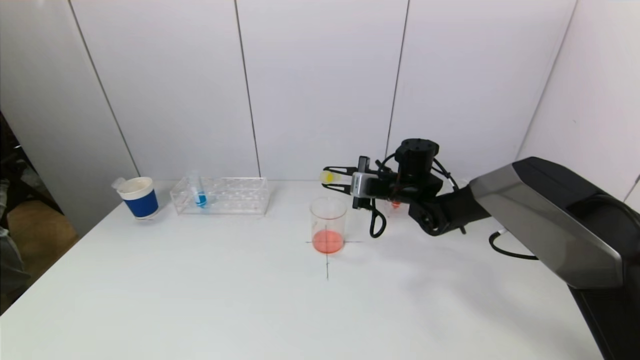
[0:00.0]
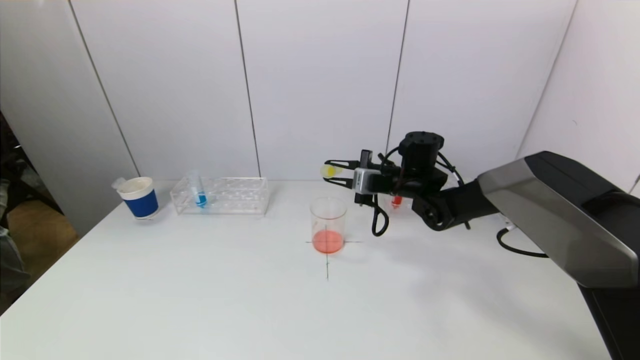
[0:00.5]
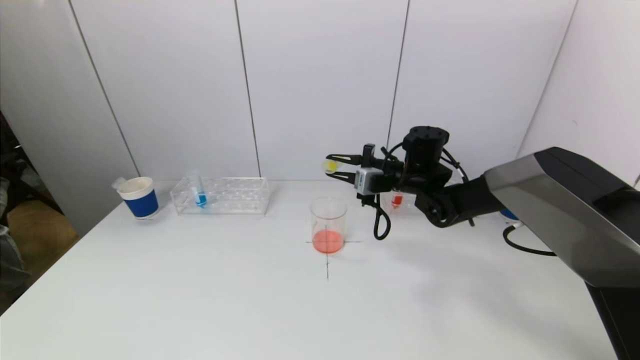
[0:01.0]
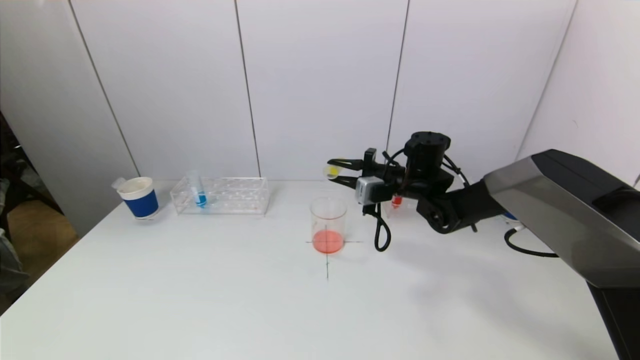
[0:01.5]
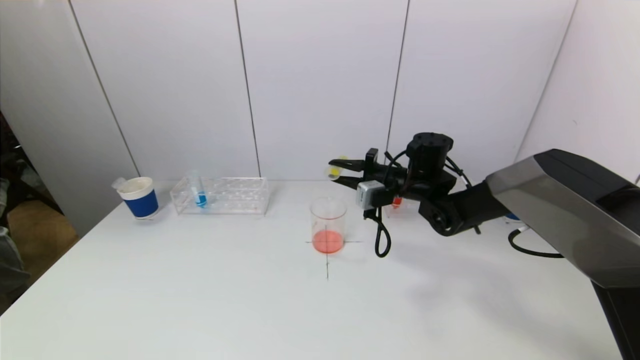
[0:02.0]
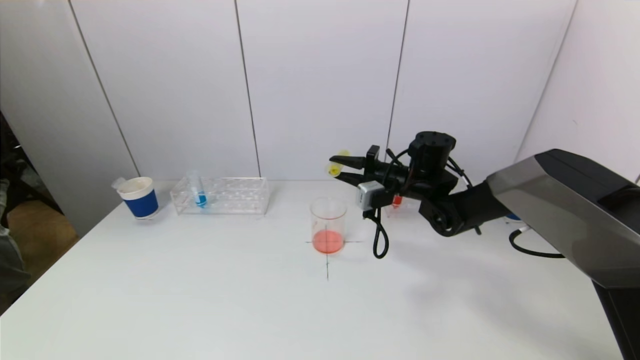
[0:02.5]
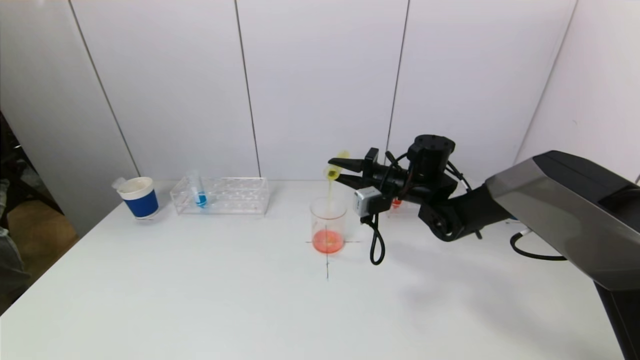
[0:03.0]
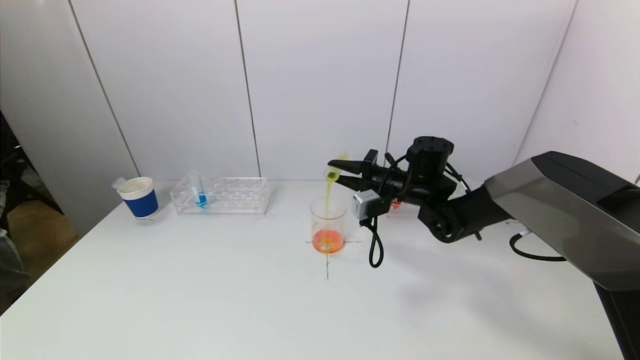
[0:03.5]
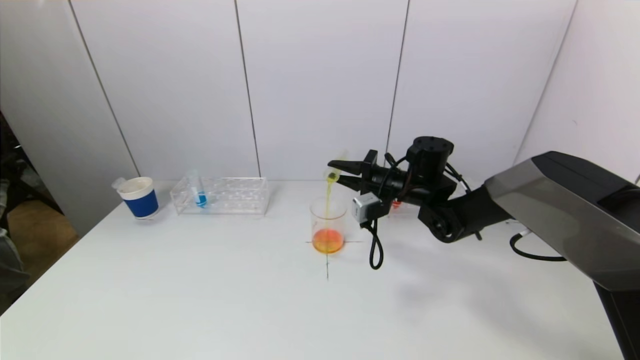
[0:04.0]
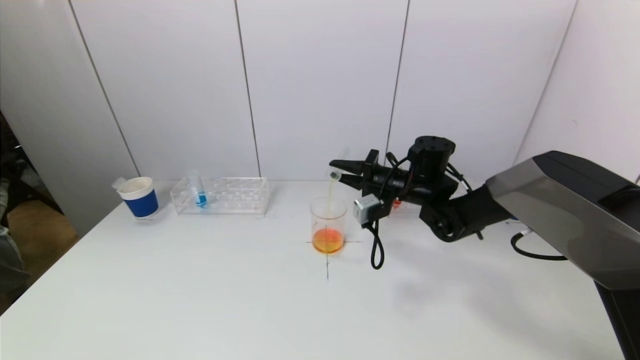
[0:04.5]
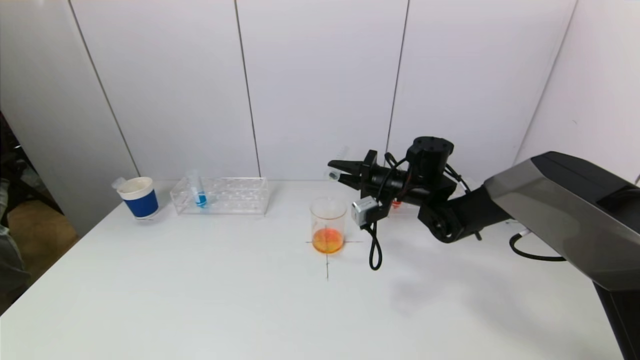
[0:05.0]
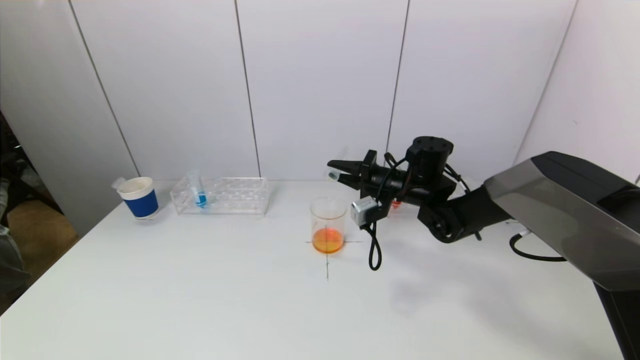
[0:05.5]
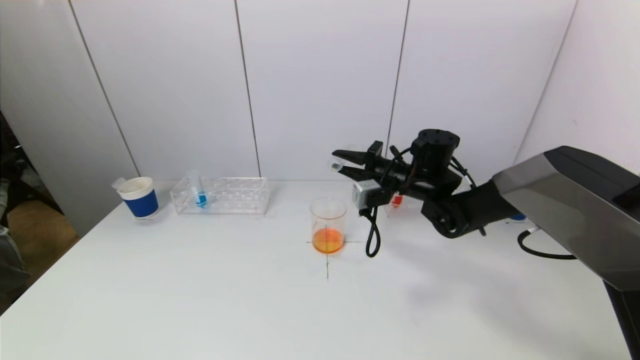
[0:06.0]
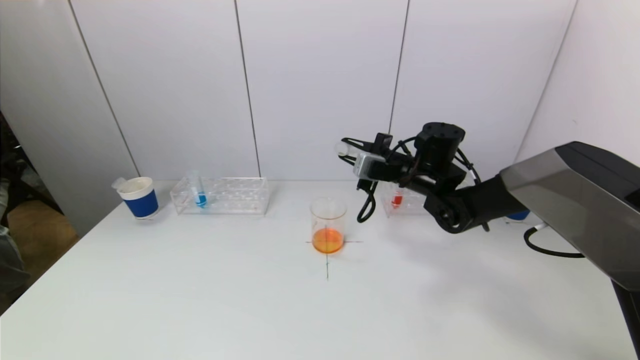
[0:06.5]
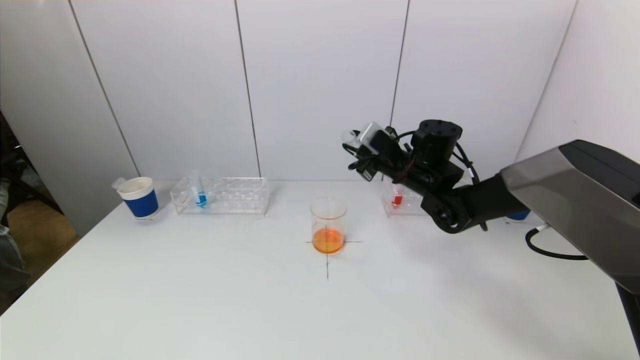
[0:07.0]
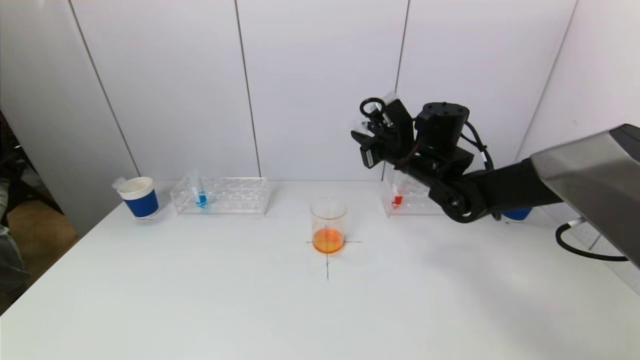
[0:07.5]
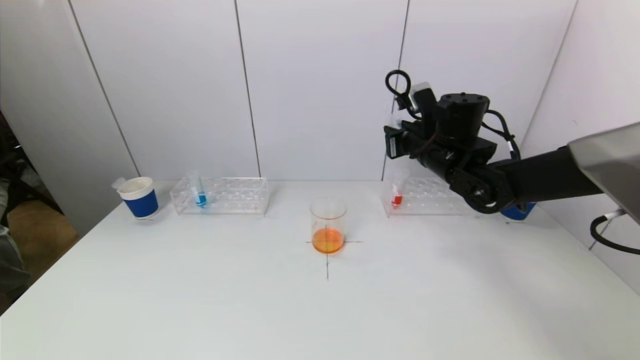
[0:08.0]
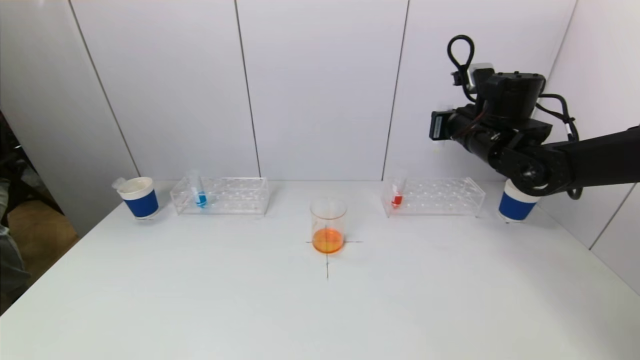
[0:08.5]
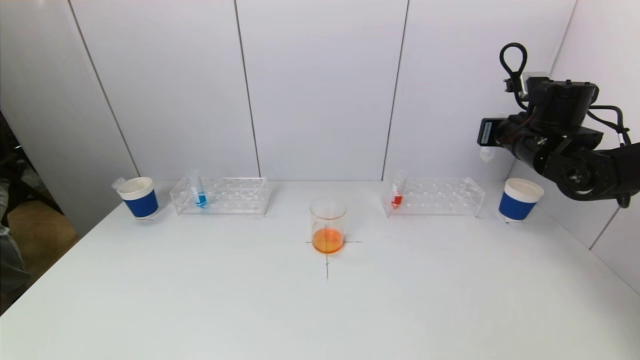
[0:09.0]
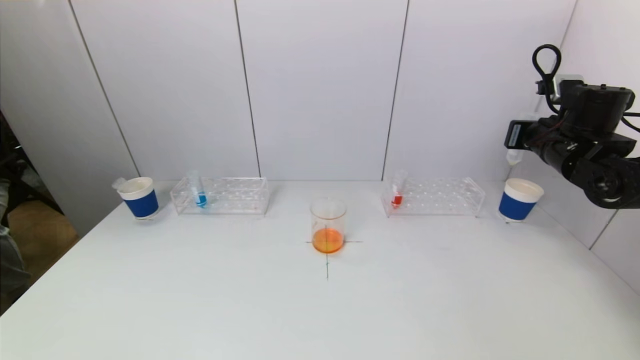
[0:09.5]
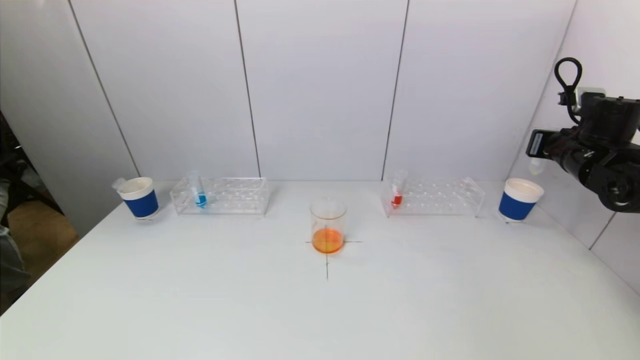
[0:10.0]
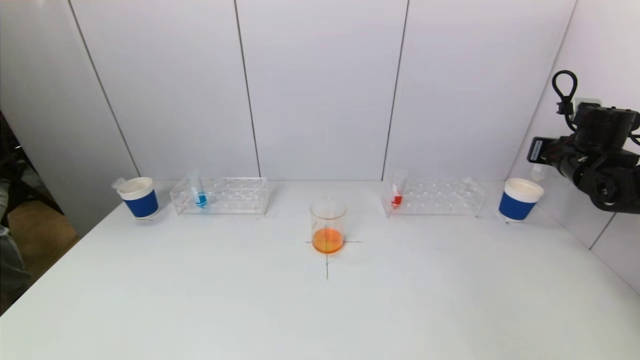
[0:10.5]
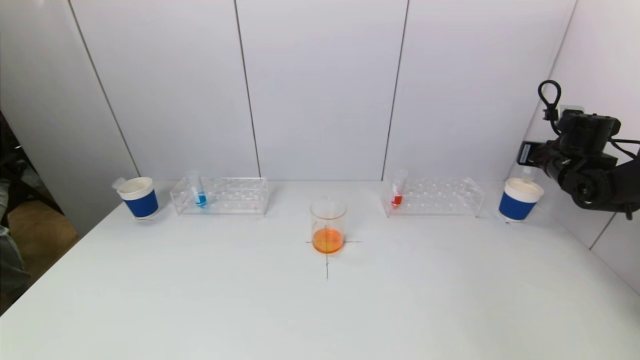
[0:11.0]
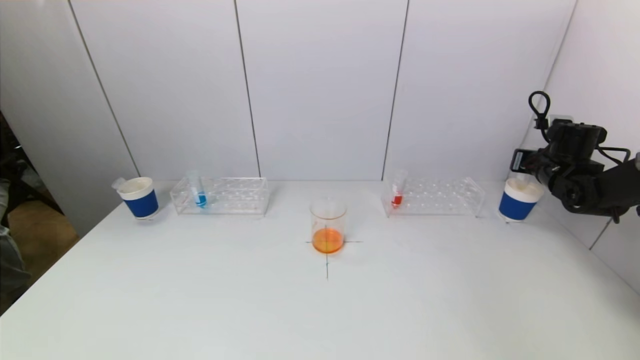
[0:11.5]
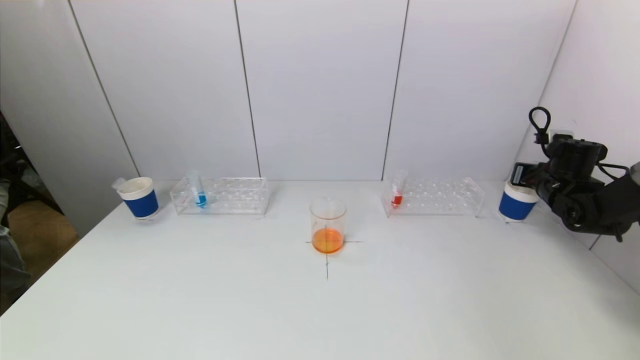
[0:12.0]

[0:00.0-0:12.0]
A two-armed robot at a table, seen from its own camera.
Task of the whole recording: pick up a test tube with pigment on left test tube rack and a test tube with pigment on right test tube rack by grippers and pour them into the beaker.
Step, 0:00.0 to 0:05.5: Pour the yellow reagent into the graduated cylinder with the right gripper.
0:00.0 to 0:02.0: The grippers make only small movements.
0:02.0 to 0:04.0: There are only small adjustments of the grippers.
0:04.0 to 0:06.0: The grippers make only small movements.
0:06.0 to 0:08.0: The right gripper goes some 5 cm upward.
0:08.0 to 0:10.0: The right gripper is displaced to the right by approximately 20 cm.
0:10.0 to 0:12.0: The right gripper travels downward by some 10 cm.

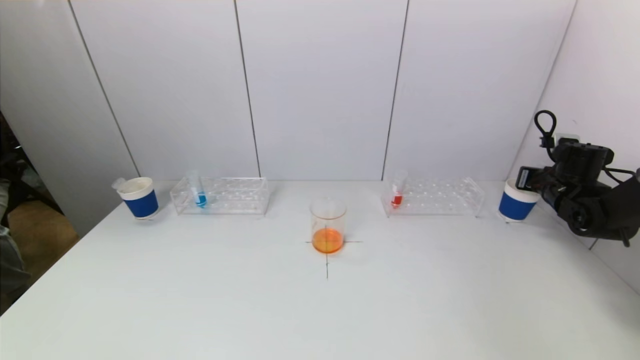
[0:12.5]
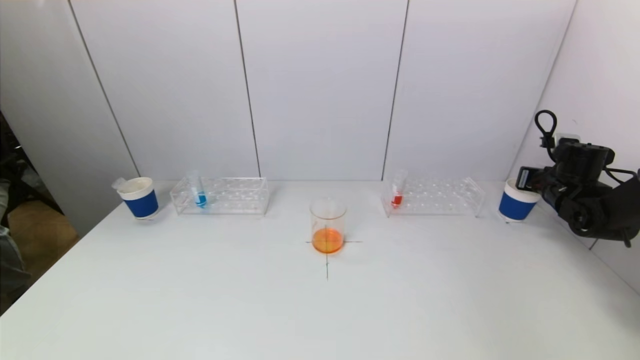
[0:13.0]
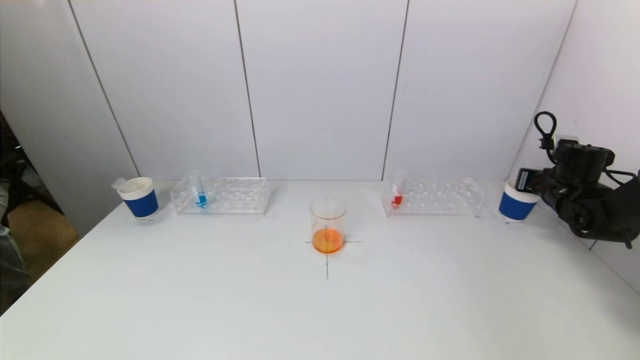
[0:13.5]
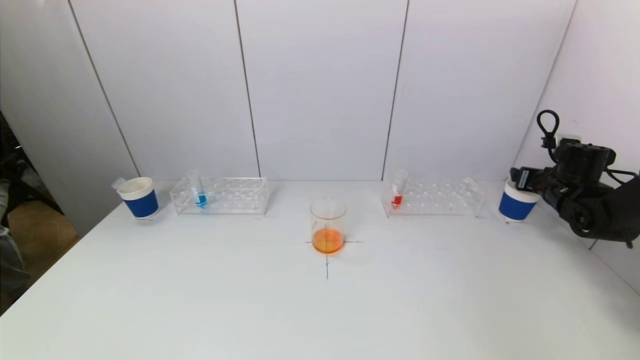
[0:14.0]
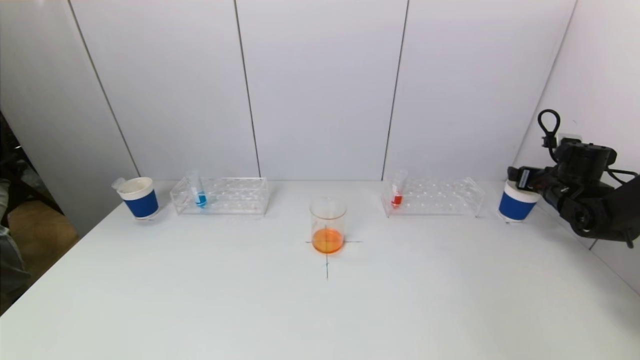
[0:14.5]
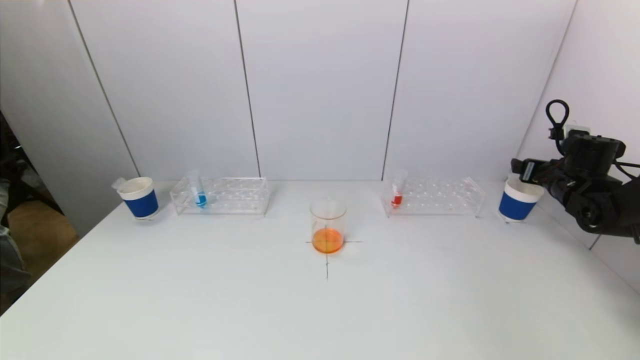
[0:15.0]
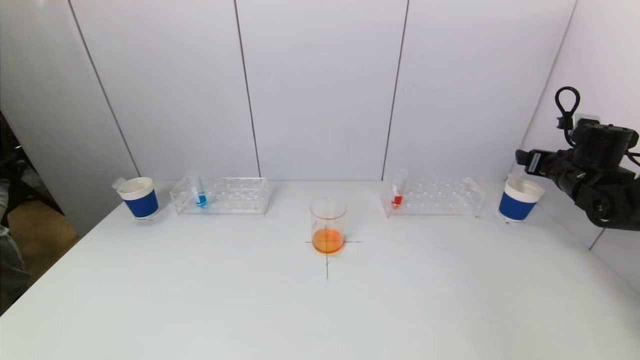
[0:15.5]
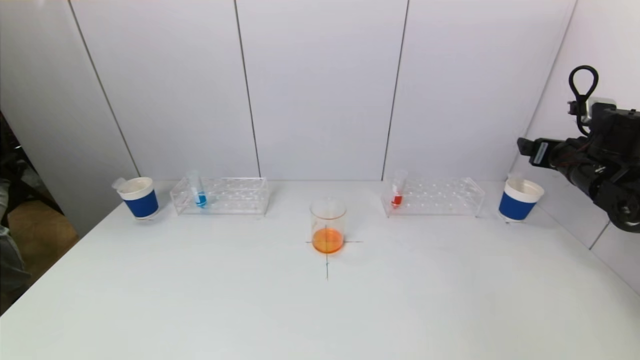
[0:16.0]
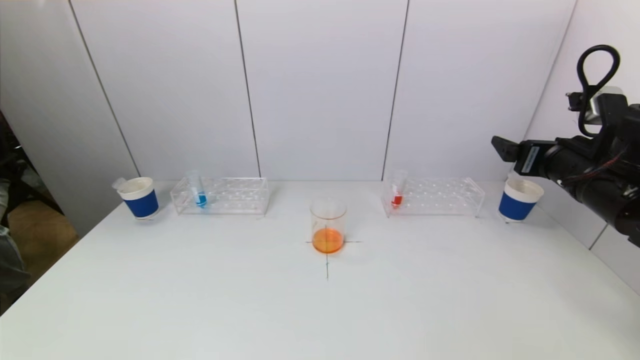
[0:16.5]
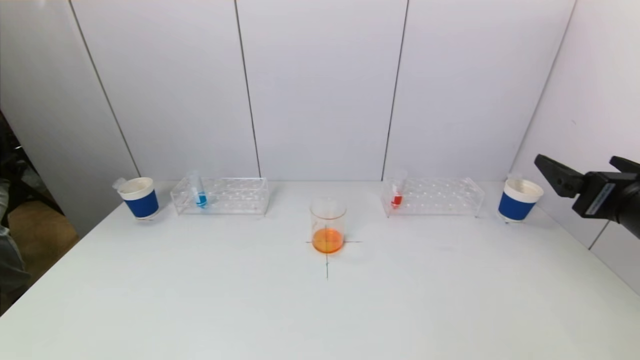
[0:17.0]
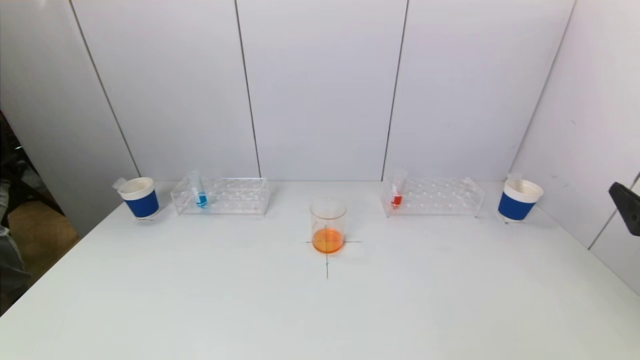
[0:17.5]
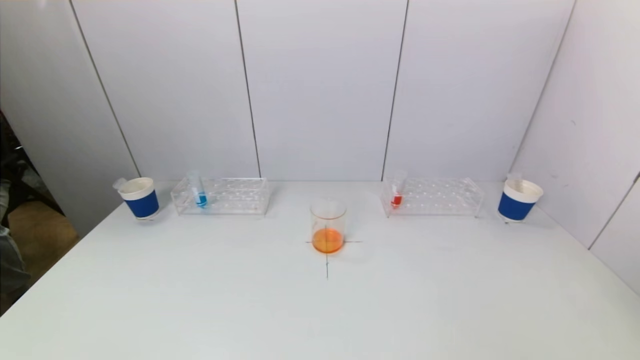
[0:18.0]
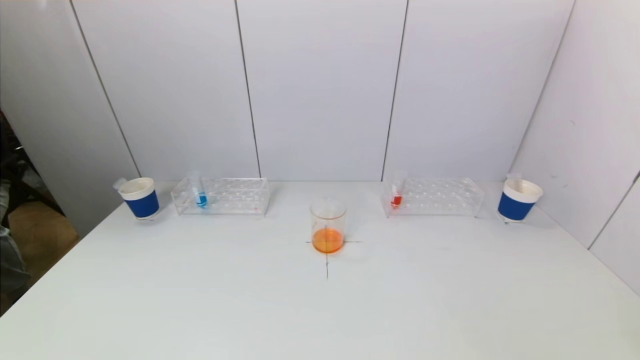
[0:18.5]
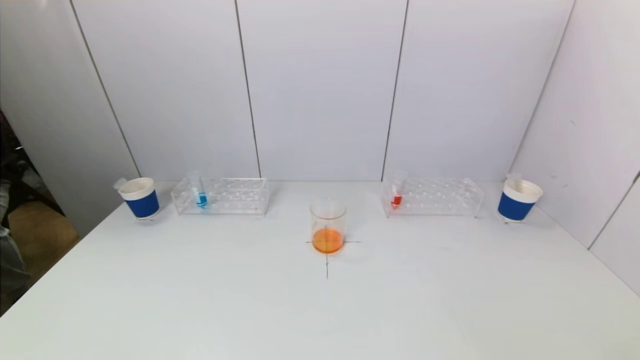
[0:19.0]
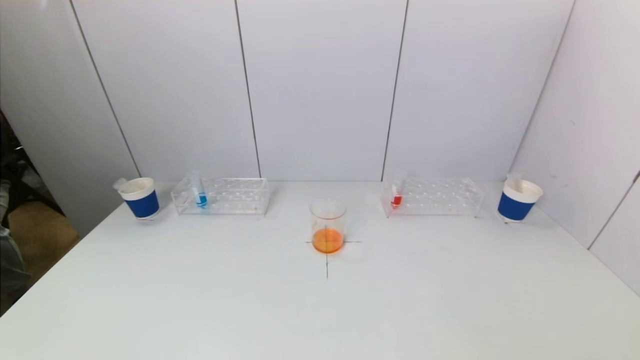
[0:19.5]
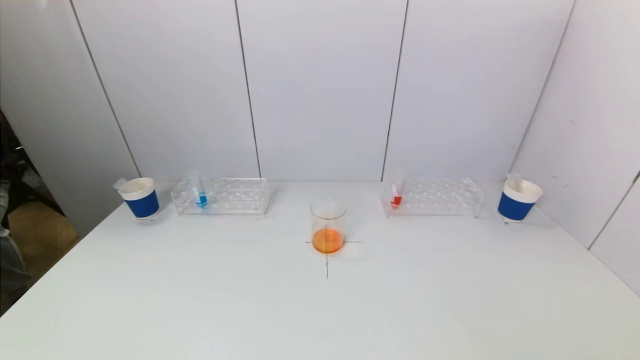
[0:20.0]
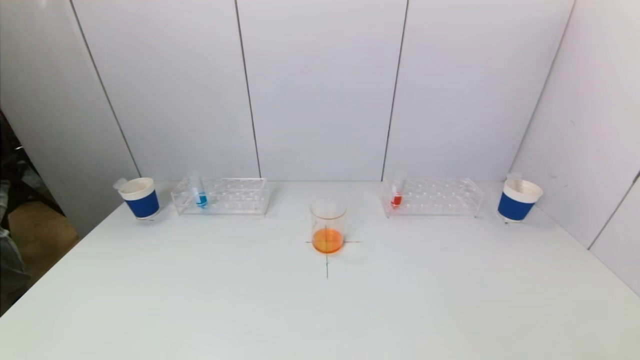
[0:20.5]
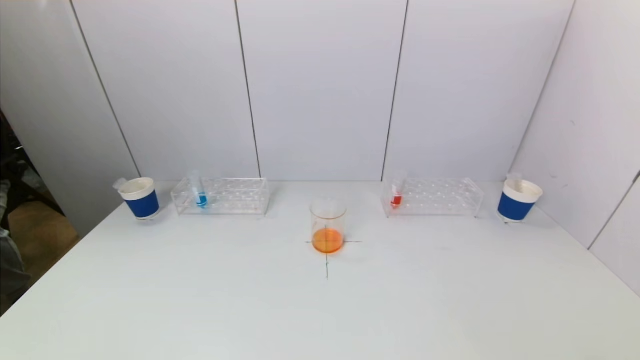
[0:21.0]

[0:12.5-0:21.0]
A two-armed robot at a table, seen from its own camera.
Task of the whole recording: pick up a test tube with pigment on left test tube rack and a test tube with pigment on right test tube rack by grippers and pour them into the beaker.
0:12.5 to 0:14.5: The right gripper opens its fingers.
0:14.5 to 0:16.5: The right gripper travels backward, to the left and upward by approximately 20 cm.
0:16.5 to 0:19.0: The right gripper travels backward by roughly 30 cm.
